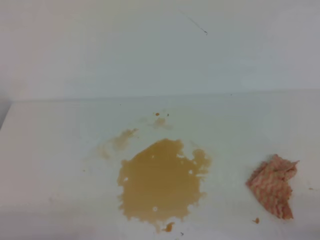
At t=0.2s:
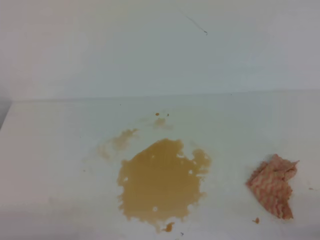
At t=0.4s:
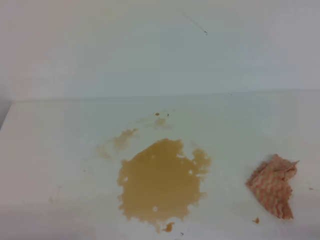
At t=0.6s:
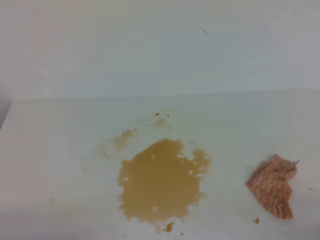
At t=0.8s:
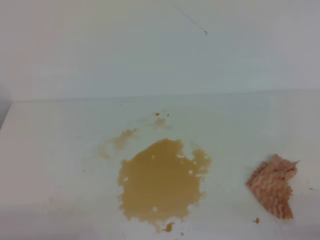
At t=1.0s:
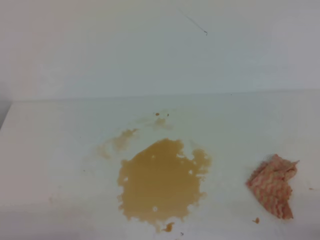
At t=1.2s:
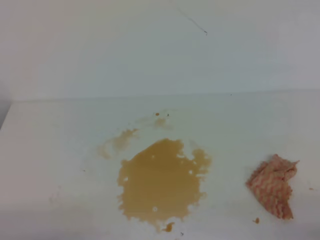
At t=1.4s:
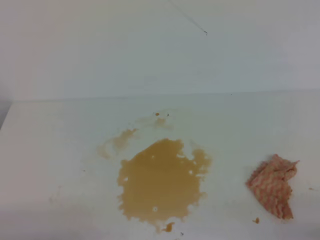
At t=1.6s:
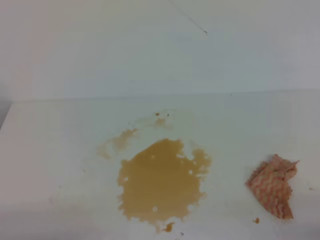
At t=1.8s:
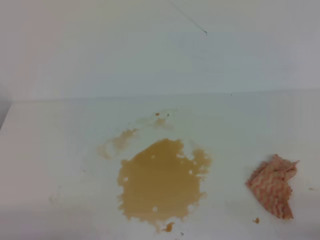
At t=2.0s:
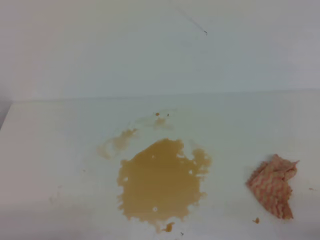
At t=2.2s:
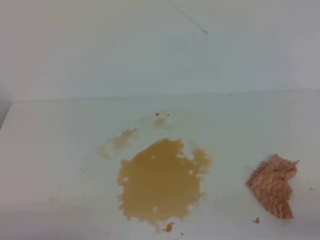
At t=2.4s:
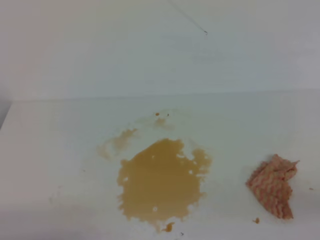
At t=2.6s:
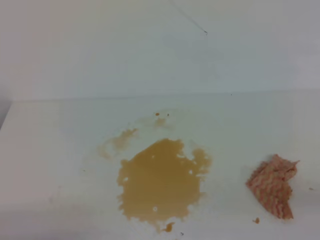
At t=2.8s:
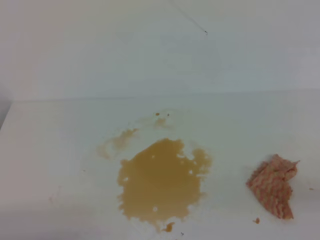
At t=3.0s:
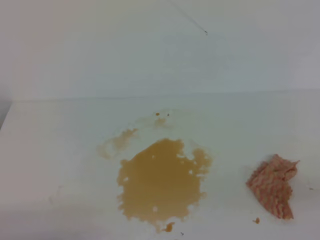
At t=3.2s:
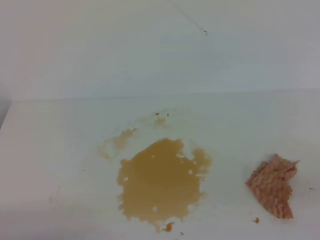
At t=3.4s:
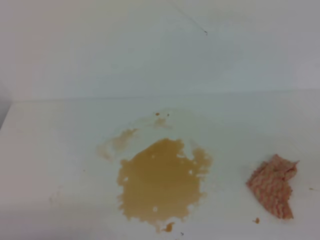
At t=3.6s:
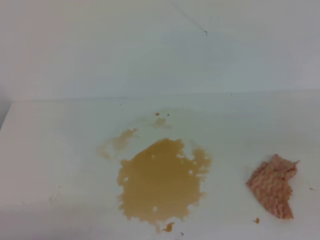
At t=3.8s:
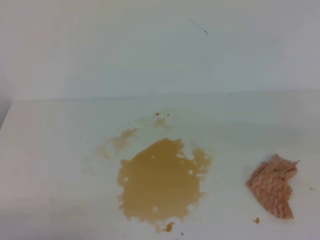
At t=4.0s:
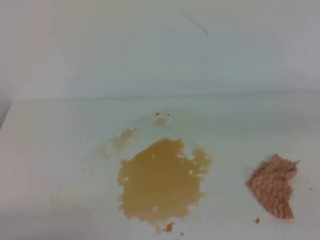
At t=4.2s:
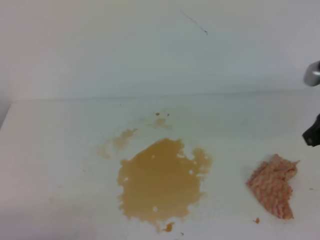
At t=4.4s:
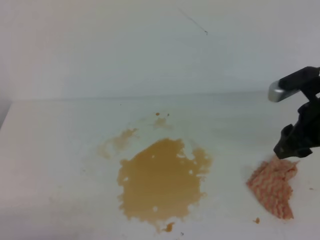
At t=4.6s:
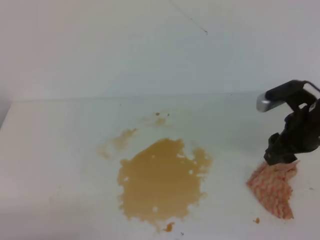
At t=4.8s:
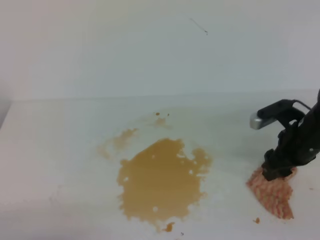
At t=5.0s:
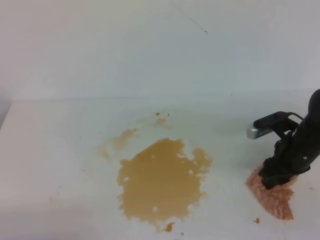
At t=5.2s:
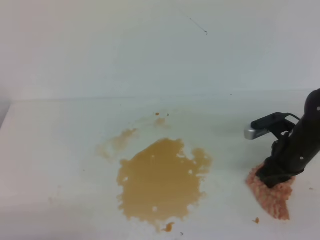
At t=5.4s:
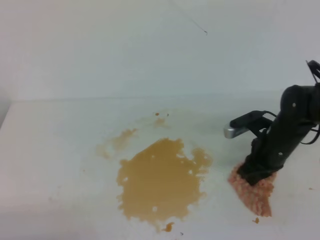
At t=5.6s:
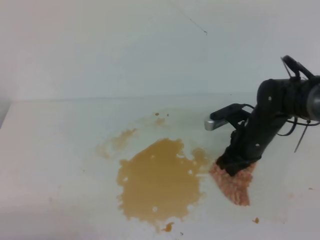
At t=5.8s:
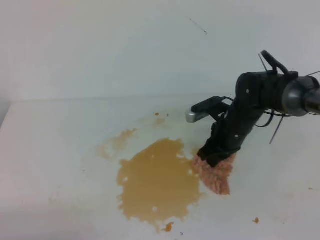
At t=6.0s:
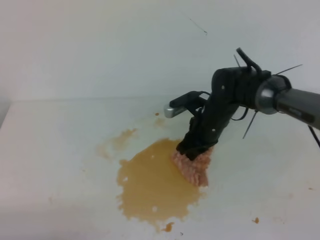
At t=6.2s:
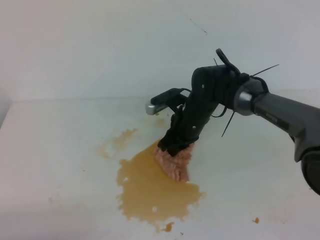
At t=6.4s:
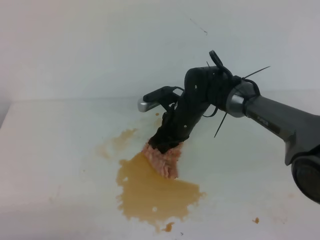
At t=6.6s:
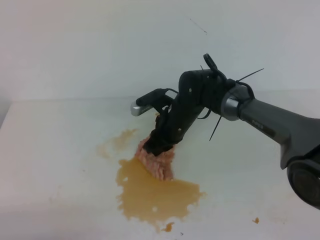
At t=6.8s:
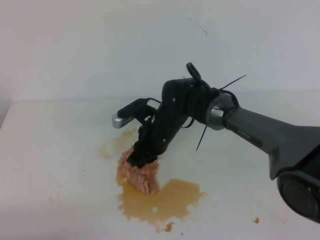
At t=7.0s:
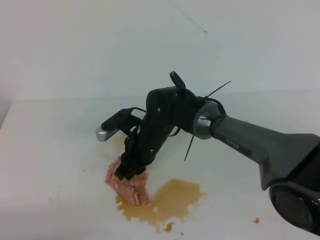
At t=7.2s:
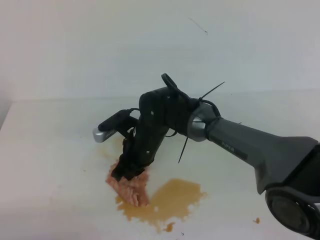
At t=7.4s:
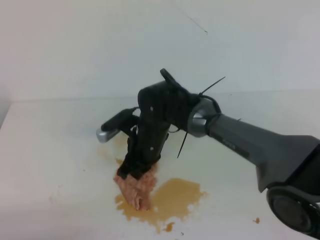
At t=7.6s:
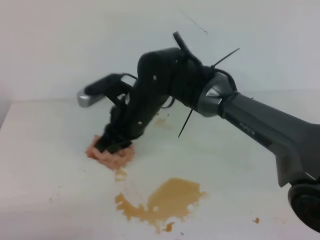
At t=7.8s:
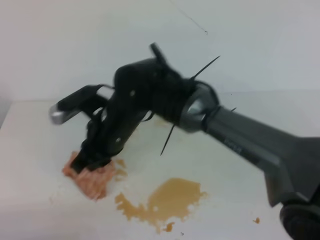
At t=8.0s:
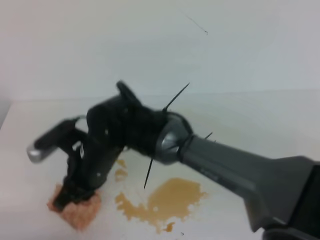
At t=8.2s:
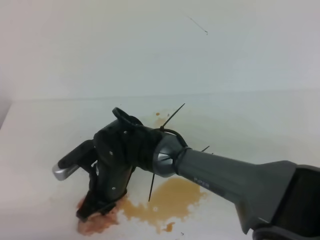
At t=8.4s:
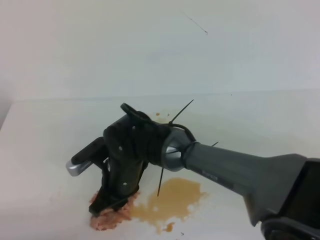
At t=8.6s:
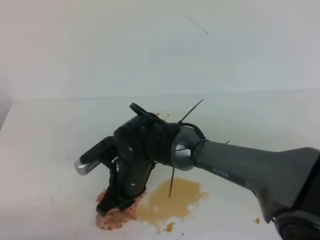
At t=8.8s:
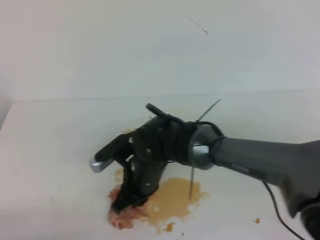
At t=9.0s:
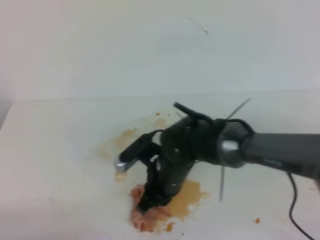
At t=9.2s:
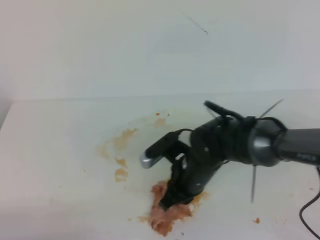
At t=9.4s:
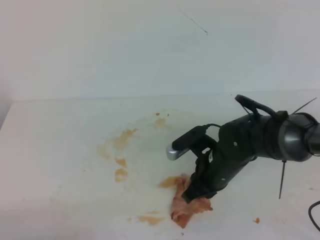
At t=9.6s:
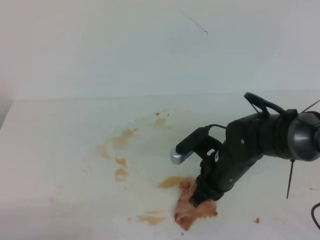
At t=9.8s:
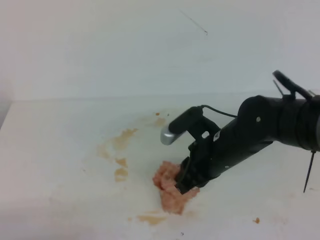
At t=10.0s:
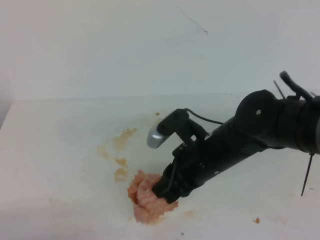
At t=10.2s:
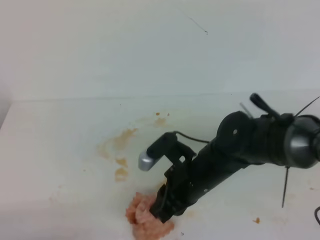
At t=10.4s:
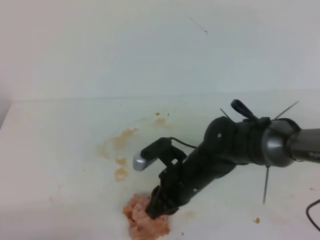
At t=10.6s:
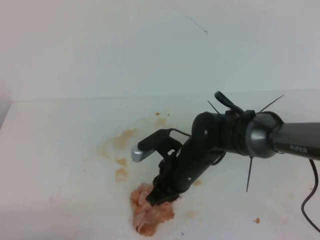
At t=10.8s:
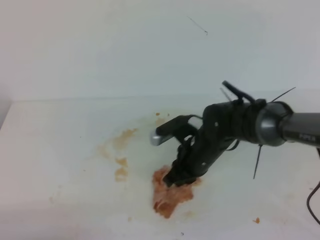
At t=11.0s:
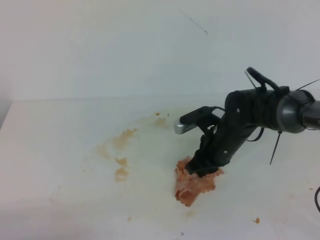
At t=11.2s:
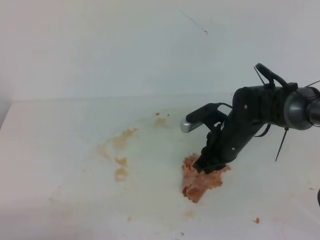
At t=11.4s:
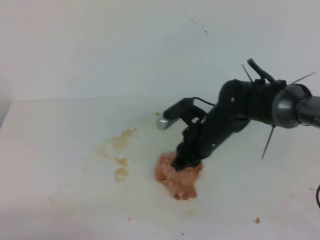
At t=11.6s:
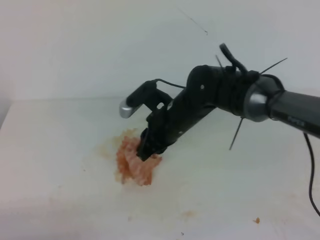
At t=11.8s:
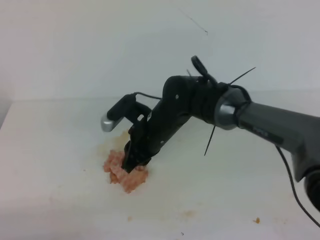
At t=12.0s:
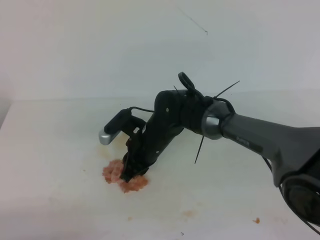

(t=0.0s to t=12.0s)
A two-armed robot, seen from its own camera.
t=0.0s - t=1.6s: Neither gripper changes place.
t=3.0s - t=4.4s: The right gripper is displaced forward by some 25 cm, and opens up.
t=4.4s - t=6.0s: The right gripper heads to the left, downward and forward, covering about 25 cm, and closes.
t=6.0s - t=7.6s: The right gripper moves to the left, upward and backward, approximately 20 cm.
t=7.6s - t=9.0s: The right gripper moves downward and to the right, roughly 10 cm.
t=10.4s - t=12.0s: The right gripper heads forward and to the left, covering roughly 10 cm.

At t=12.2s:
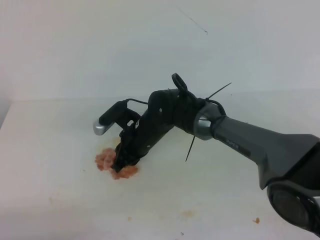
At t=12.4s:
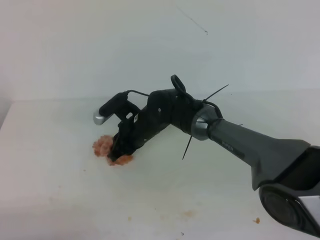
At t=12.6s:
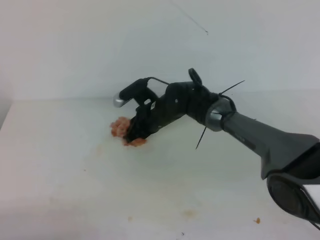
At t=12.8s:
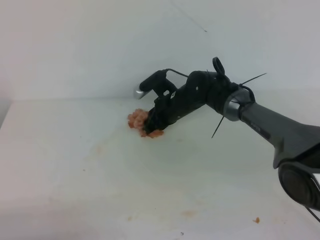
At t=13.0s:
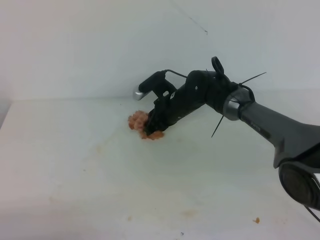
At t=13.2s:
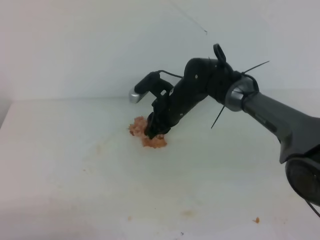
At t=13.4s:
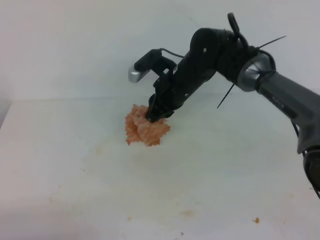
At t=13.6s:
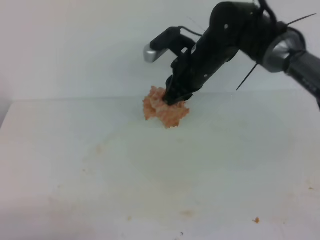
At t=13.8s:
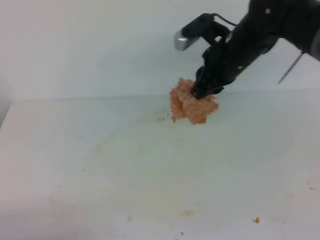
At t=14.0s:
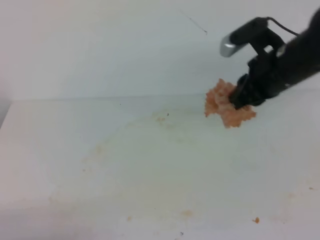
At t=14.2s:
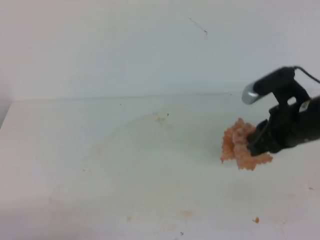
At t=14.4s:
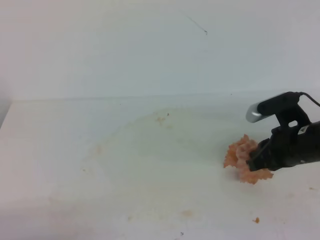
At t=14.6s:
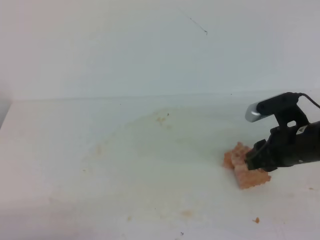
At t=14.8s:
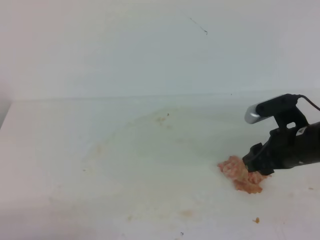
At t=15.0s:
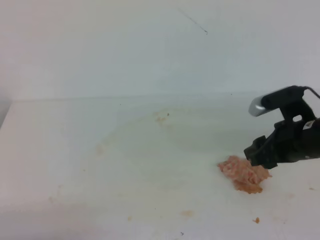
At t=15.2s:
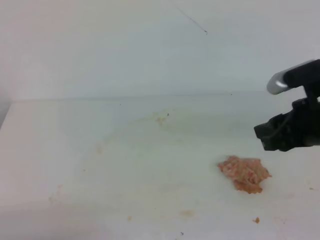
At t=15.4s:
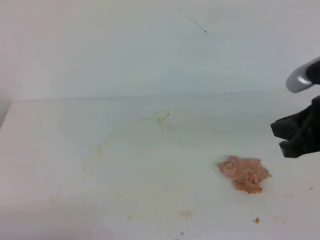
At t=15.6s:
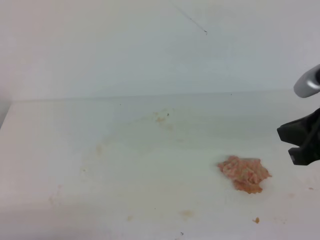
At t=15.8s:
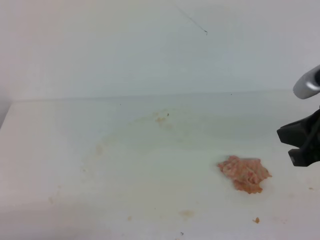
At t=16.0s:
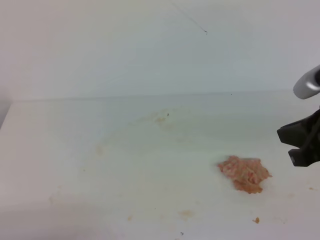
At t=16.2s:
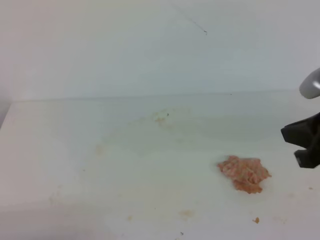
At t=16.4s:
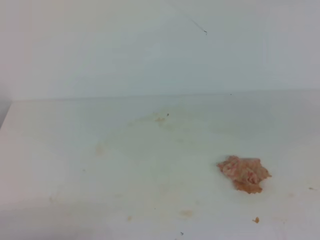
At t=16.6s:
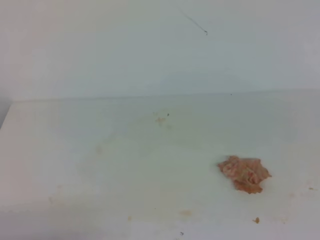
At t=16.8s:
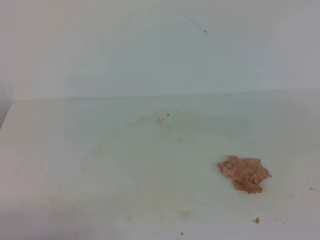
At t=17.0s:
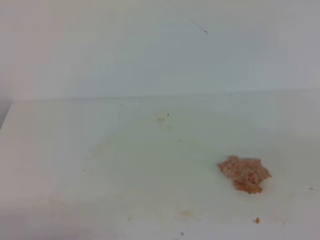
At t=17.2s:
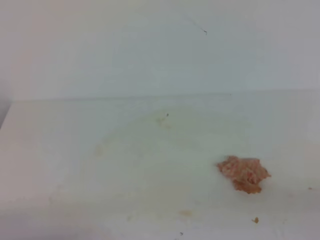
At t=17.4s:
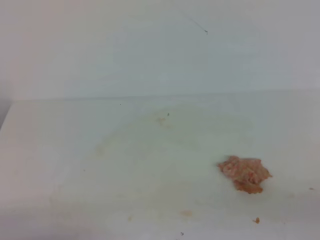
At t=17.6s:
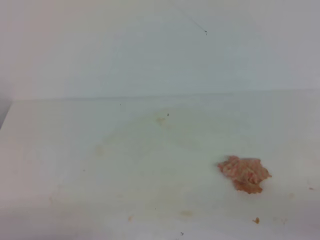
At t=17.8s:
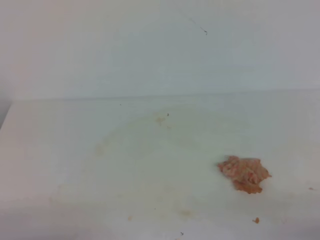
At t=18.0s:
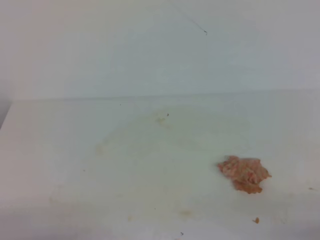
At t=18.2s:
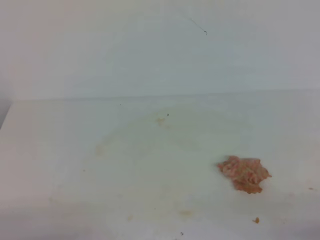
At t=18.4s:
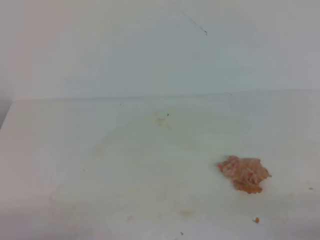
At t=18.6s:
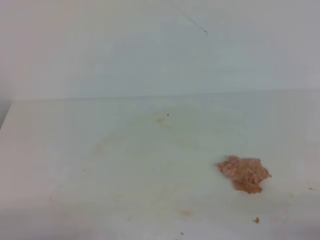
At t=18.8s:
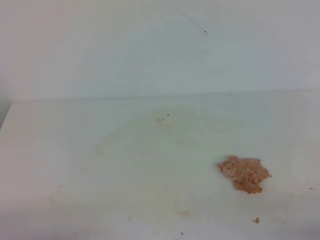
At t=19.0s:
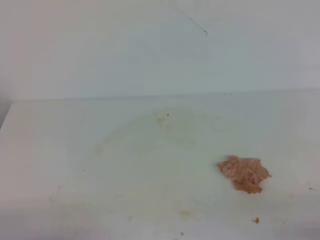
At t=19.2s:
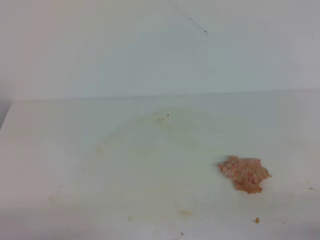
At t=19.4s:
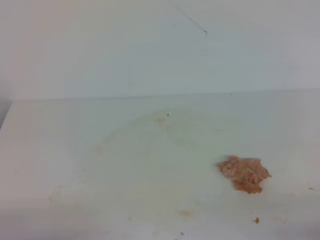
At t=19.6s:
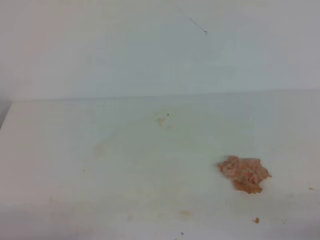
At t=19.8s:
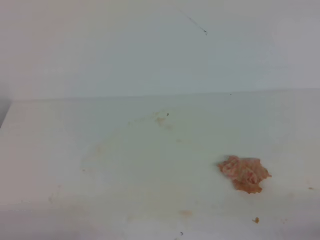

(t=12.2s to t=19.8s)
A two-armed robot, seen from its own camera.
t=12.2s - t=13.8s: The right gripper is displaced upward and to the right by roughly 25 cm.
t=13.8s - t=15.2s: The right gripper travels backward and to the right by approximately 15 cm.
t=15.2s - t=16.8s: The right gripper goes roughly 25 cm backward, upward and to the right, and closes its fingers.
t=18.2s - t=19.8s: The two grippers keep their place.
